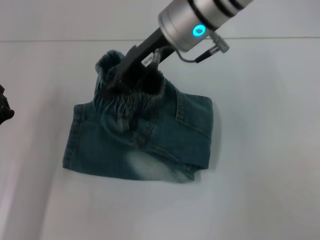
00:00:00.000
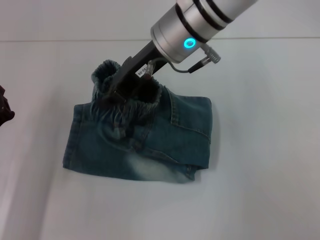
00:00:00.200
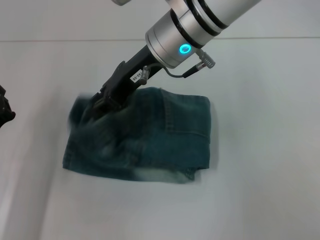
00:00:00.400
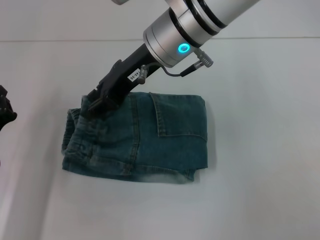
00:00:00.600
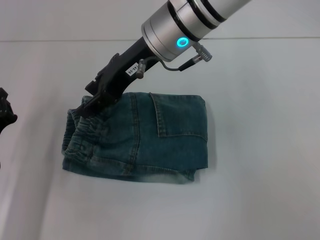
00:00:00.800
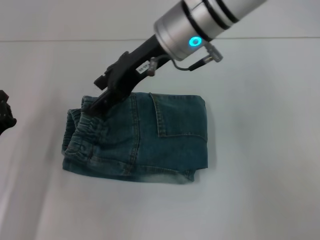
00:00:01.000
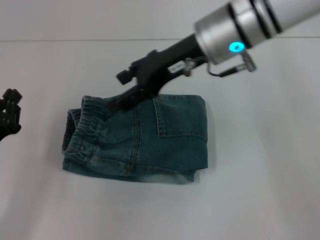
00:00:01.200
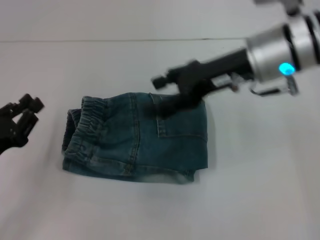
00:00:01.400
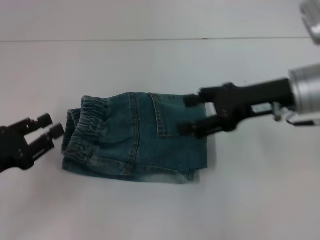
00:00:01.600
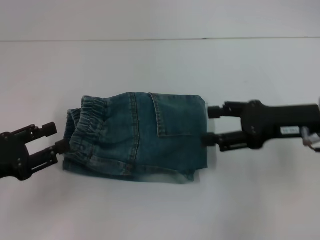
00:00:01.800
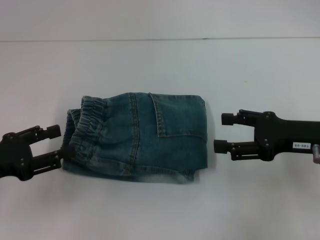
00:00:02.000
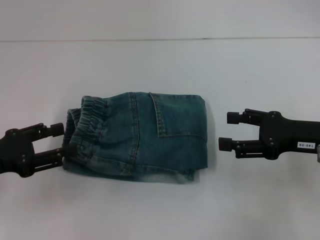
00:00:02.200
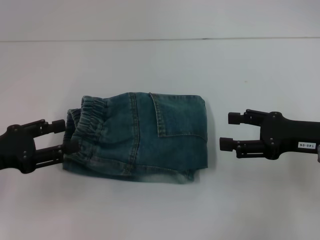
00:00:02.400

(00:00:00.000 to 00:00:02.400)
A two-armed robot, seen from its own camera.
00:00:00.000 - 00:00:01.200: The right gripper heads to the right, covering roughly 5 cm, and opens.
00:00:01.200 - 00:00:02.400: The right gripper is displaced to the right, downward and backward by approximately 25 cm; the left gripper is displaced upward by roughly 5 cm, and opens its fingers.
